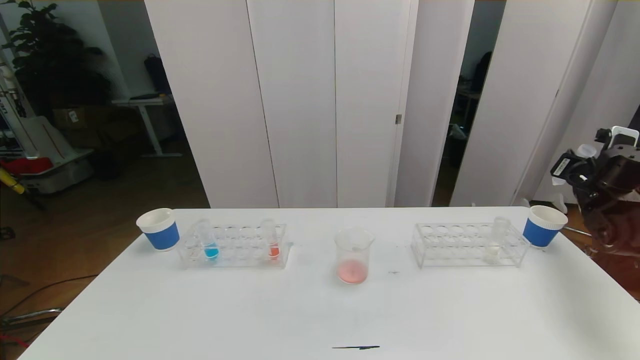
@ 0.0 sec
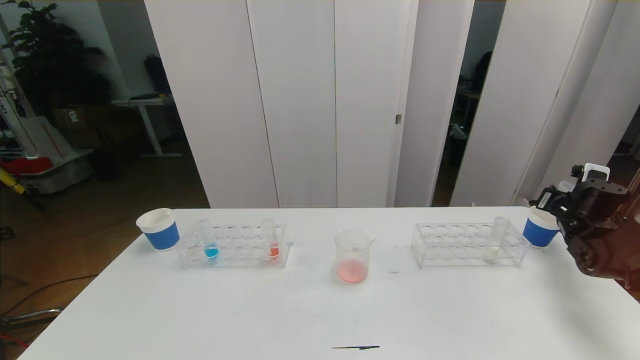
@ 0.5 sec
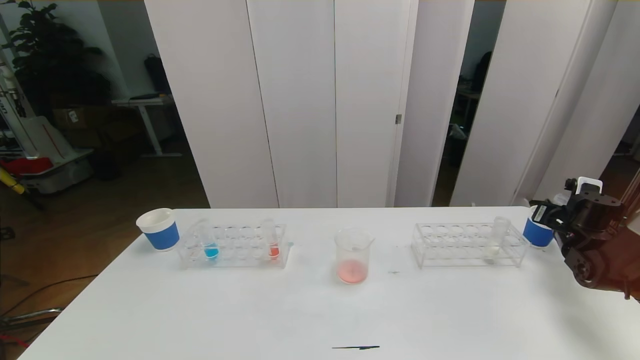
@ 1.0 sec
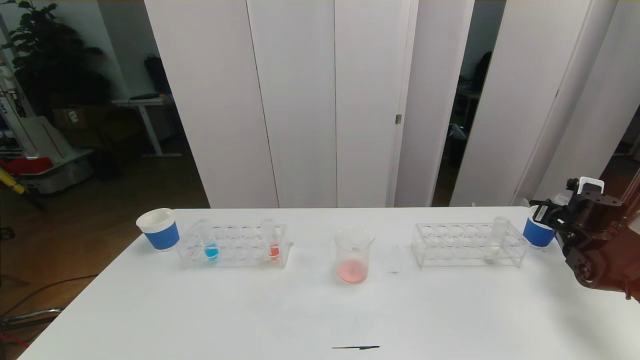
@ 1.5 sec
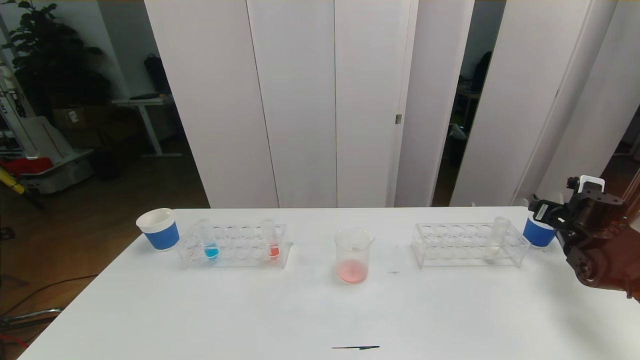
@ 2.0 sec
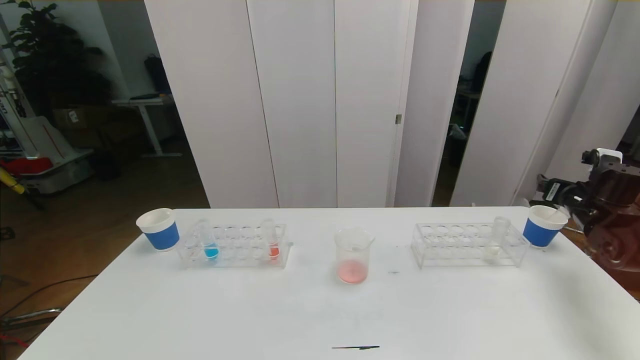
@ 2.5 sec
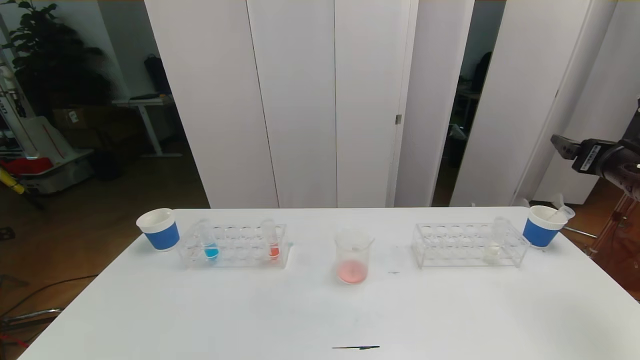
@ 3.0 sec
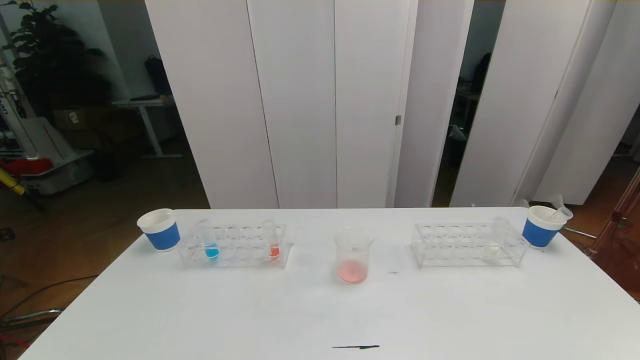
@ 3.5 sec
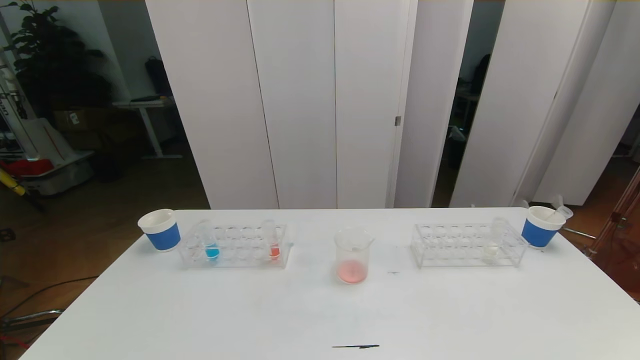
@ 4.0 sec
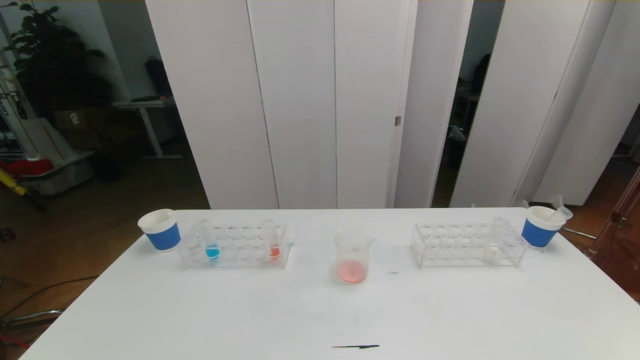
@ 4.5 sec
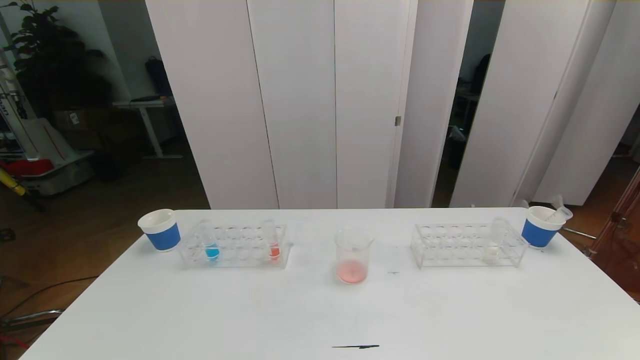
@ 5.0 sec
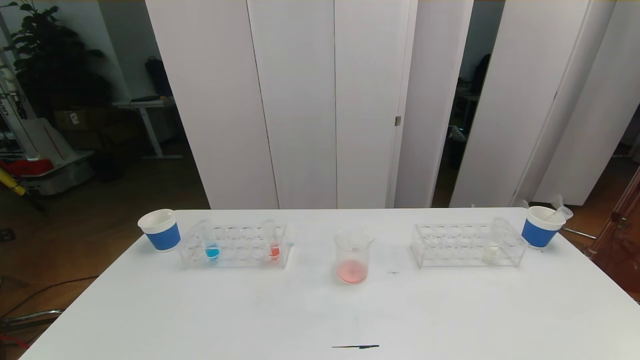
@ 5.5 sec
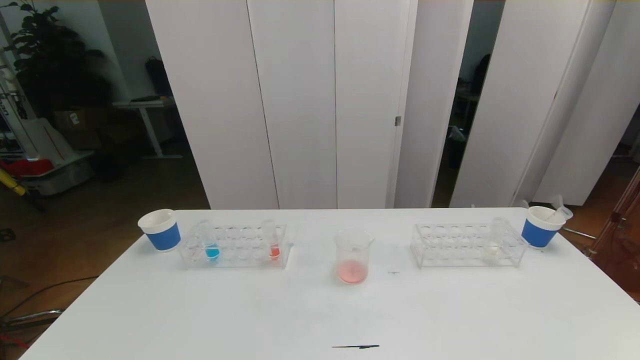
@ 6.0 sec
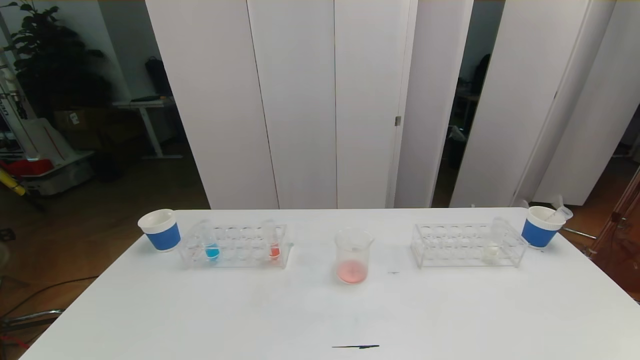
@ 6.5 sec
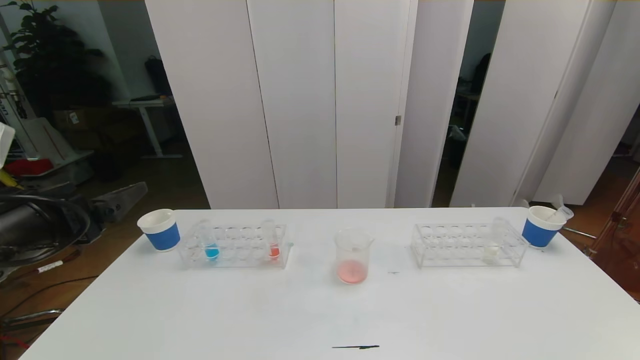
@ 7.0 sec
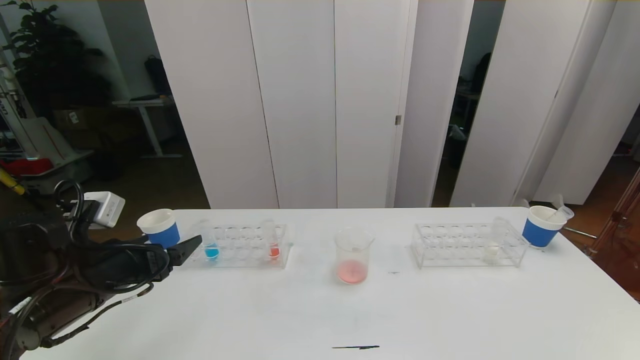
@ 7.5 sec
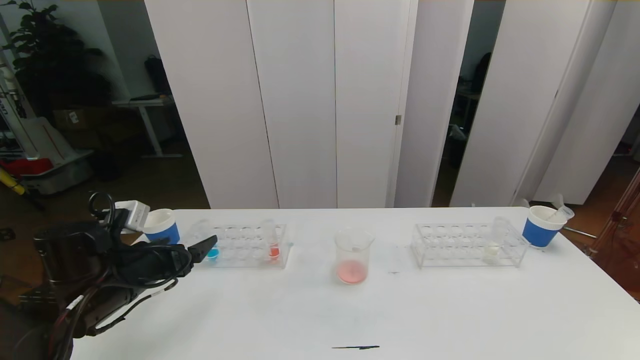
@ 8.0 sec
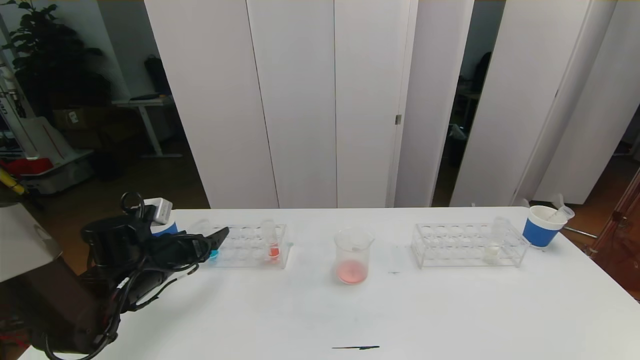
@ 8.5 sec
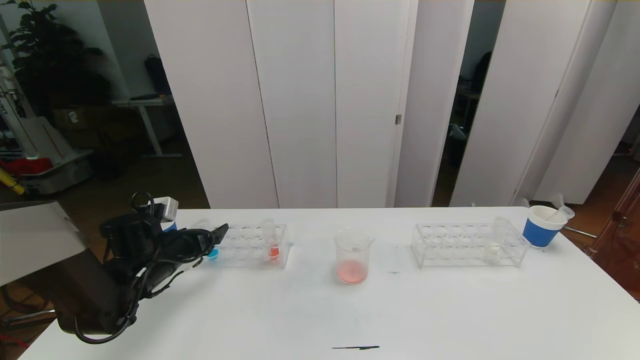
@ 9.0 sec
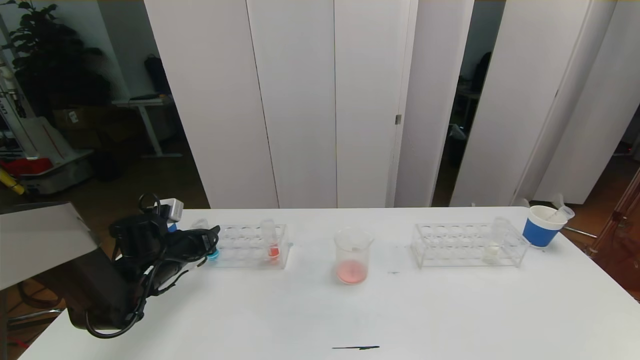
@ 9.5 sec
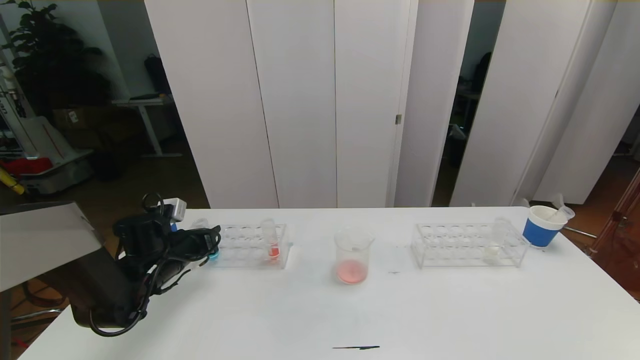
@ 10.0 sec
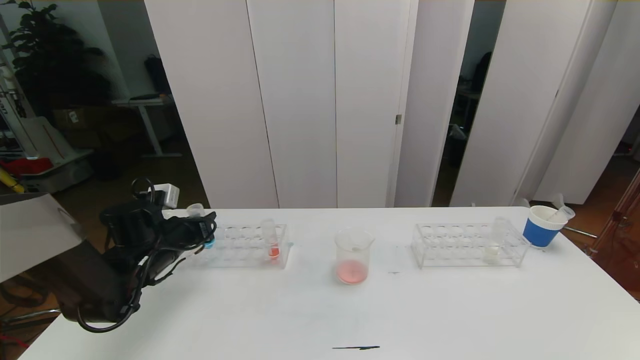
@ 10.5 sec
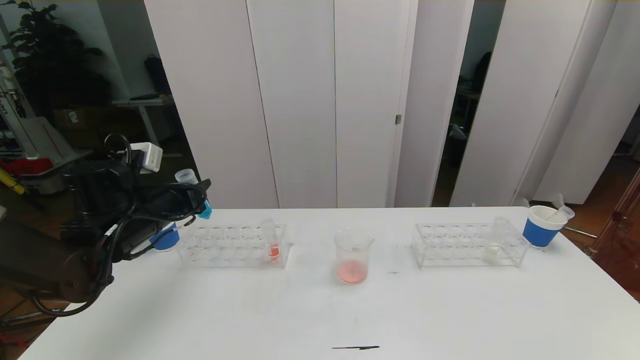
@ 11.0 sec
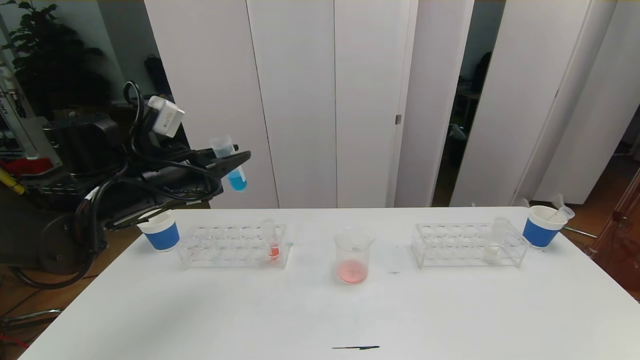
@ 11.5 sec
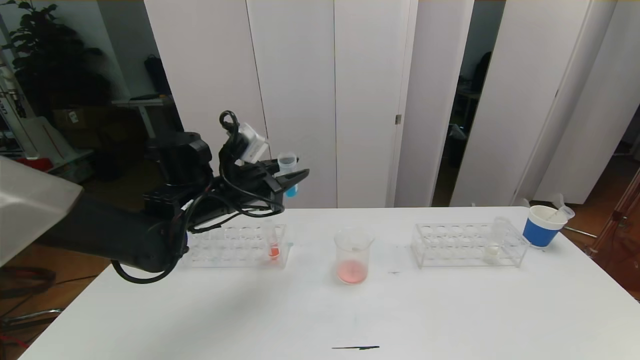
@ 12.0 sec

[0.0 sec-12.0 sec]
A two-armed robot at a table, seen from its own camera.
Task of the whole recording: pick up the test tube with red pigment the test tube with blue pigment and the test tube with white pigment by grippers and pour them into the beaker.
Step, 0.0 sec to 4.0 sec: Pour the red reagent into the graduated cylinder and place the test tube into the paper cup.
0.0 sec to 2.0 sec: The right gripper goes roughly 10 cm downward, and opens up.
2.0 sec to 4.0 sec: The right gripper heads backward, covering some 40 cm.
6.0 sec to 8.0 sec: The left gripper goes about 30 cm forward.
8.0 sec to 10.0 sec: The left gripper goes some 10 cm forward and downward, and closes its fingers.
10.0 sec to 12.0 sec: The left gripper heads upward and to the right, covering some 20 cm.

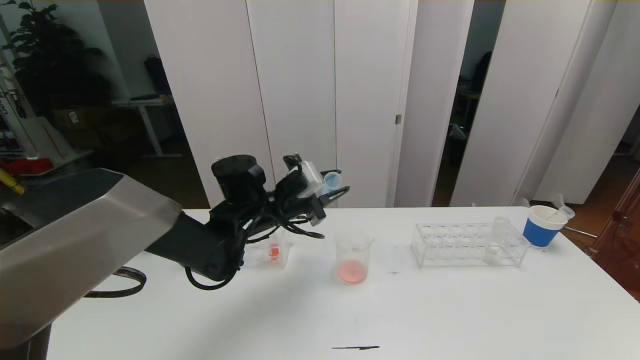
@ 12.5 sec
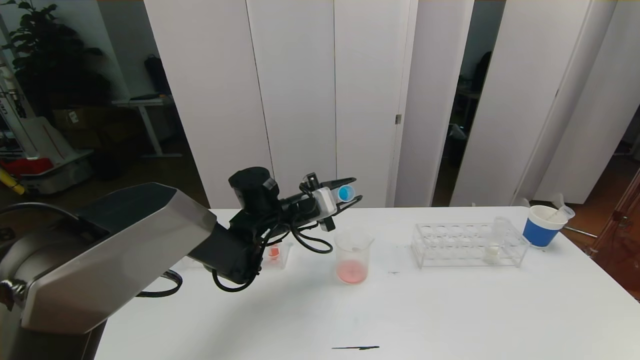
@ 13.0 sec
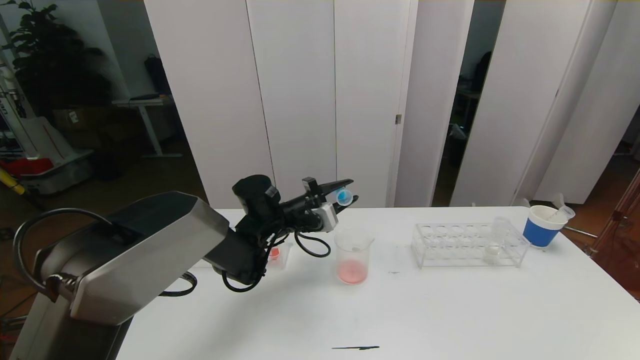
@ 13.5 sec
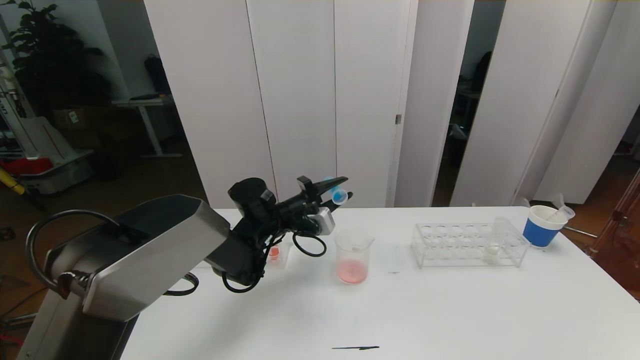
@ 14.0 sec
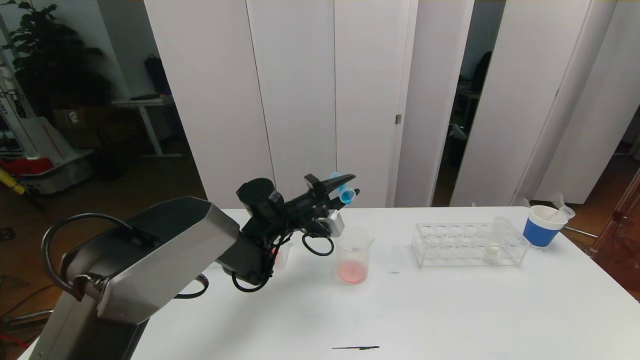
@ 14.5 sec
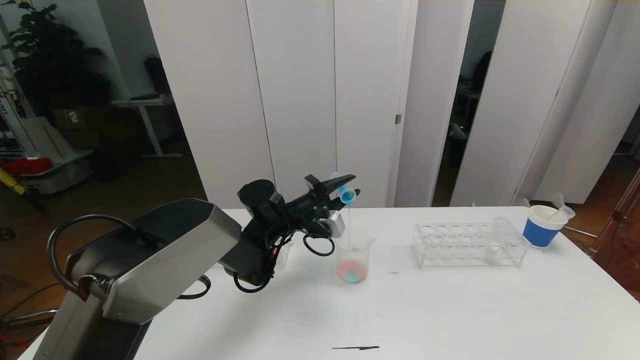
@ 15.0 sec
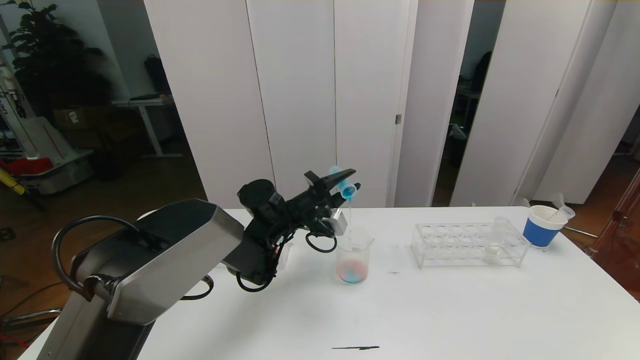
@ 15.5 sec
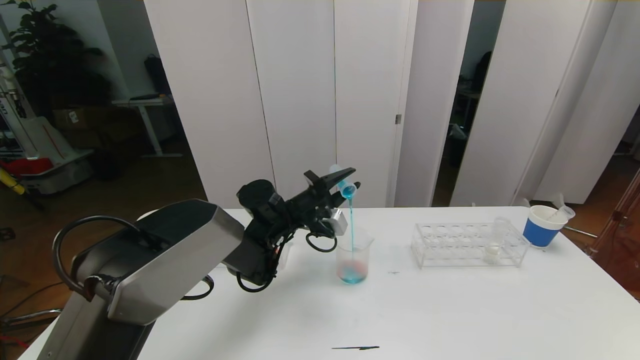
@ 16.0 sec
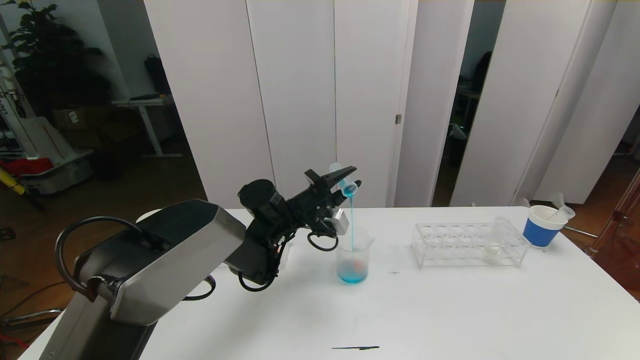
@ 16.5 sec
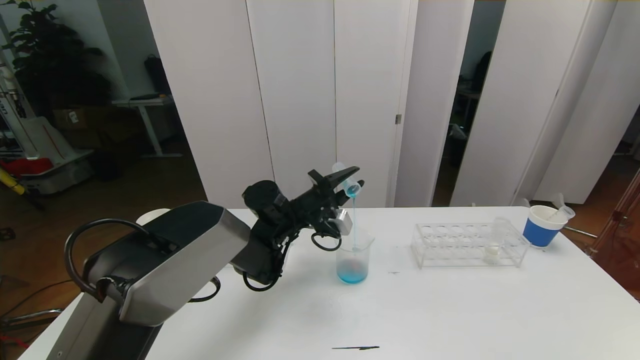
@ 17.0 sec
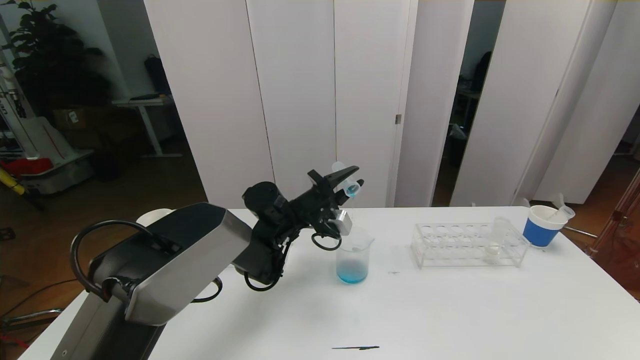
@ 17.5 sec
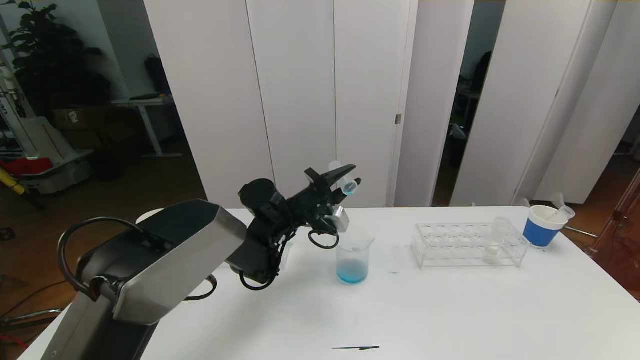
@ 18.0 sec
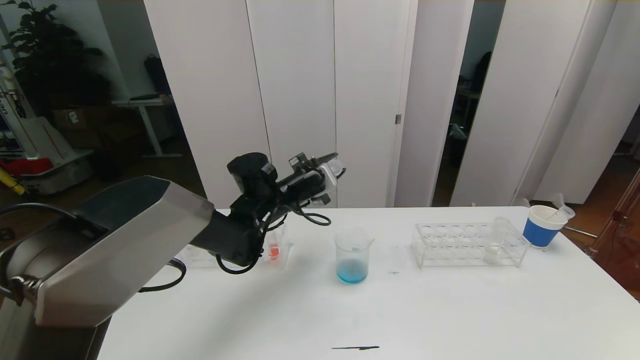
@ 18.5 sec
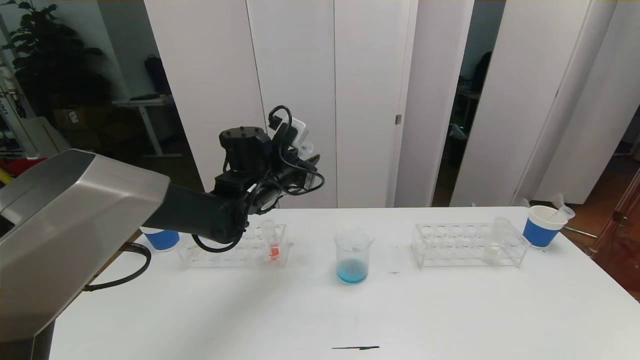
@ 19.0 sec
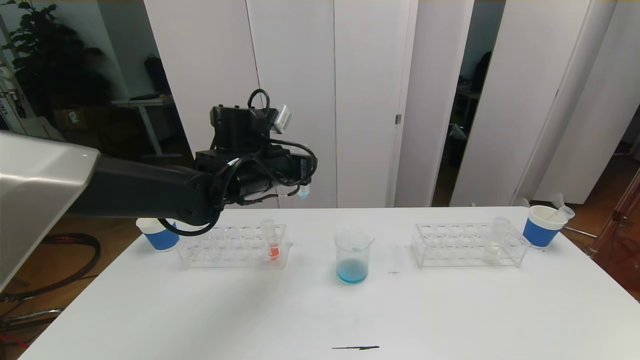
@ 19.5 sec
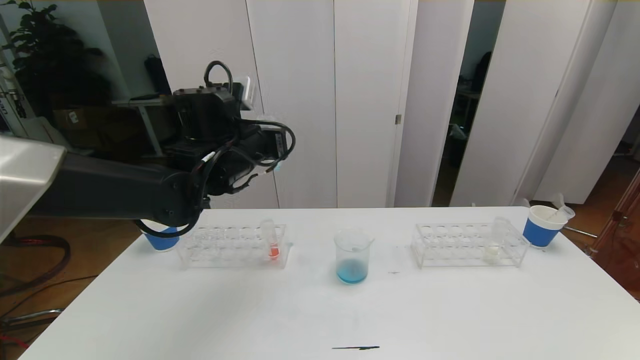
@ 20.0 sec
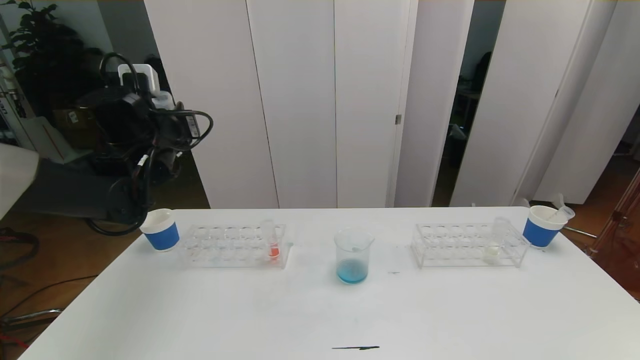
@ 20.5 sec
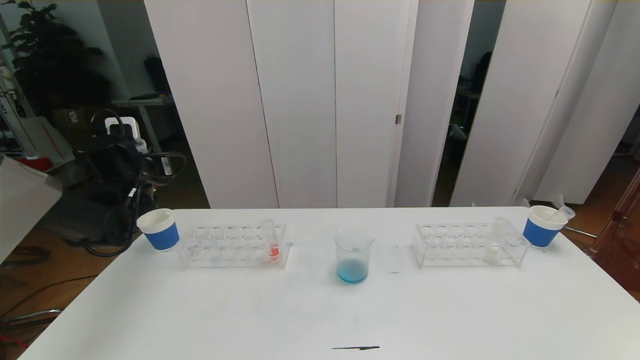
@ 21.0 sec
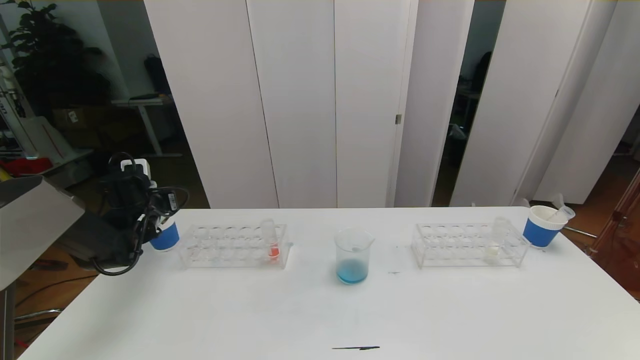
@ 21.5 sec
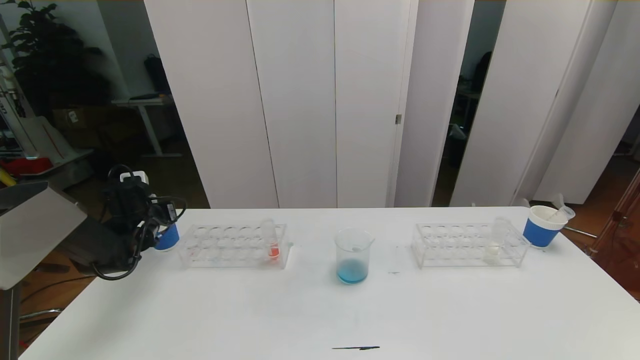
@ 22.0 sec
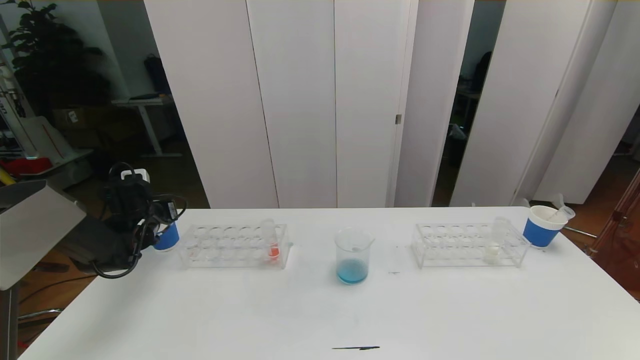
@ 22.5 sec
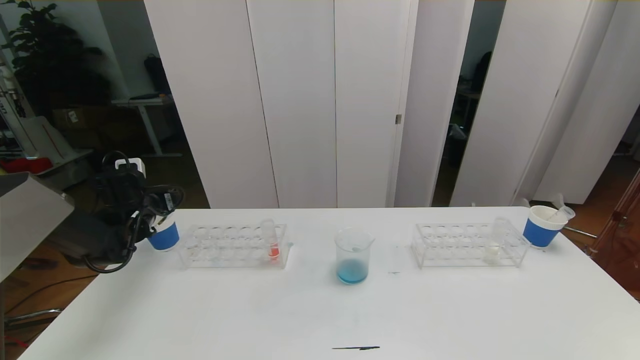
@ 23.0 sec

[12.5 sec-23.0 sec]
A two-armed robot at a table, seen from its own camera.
Task of the whole recording: pick up the test tube with red pigment the test tube with blue pigment and the test tube with white pigment by grippers and pour them into the beaker.
12.5 sec to 14.5 sec: The left gripper ends up about 5 cm from where it was.
14.5 sec to 16.5 sec: The grippers make only small movements.
16.5 sec to 19.0 sec: The left gripper heads upward, covering roughly 10 cm.
19.0 sec to 21.0 sec: The left gripper goes about 25 cm to the left.
21.0 sec to 23.0 sec: The left gripper heads downward, covering about 5 cm, and opens its fingers.
